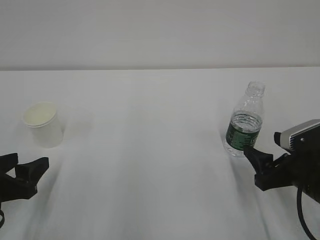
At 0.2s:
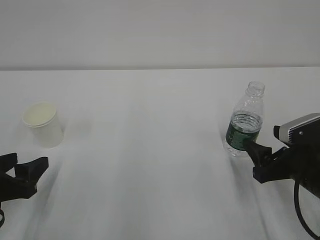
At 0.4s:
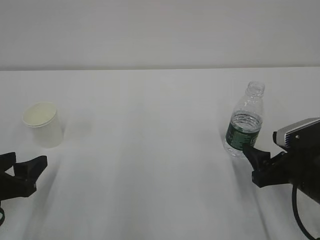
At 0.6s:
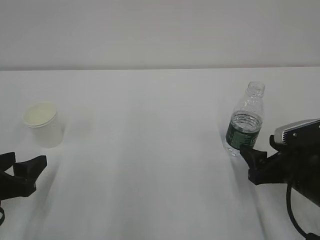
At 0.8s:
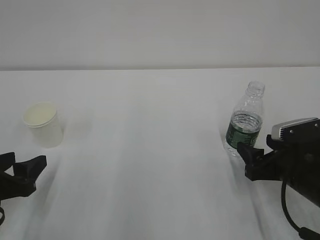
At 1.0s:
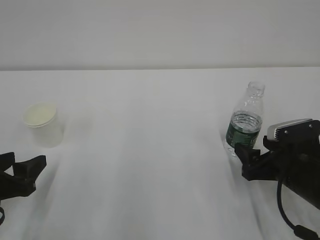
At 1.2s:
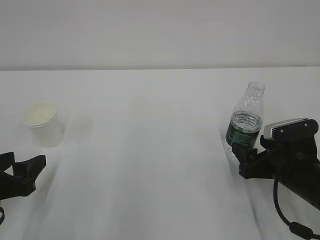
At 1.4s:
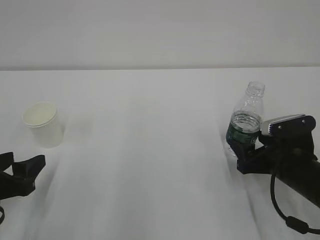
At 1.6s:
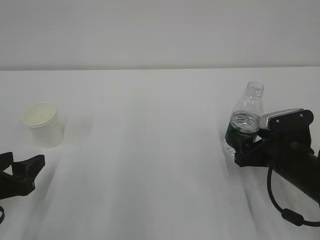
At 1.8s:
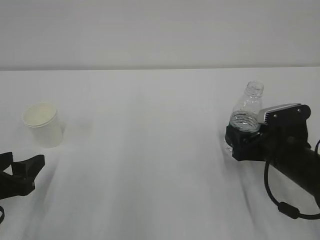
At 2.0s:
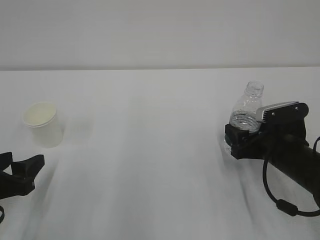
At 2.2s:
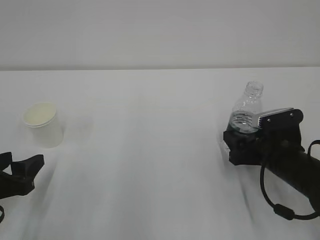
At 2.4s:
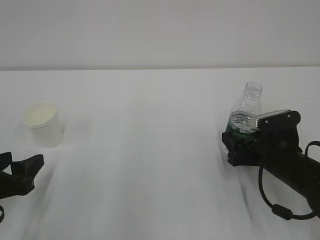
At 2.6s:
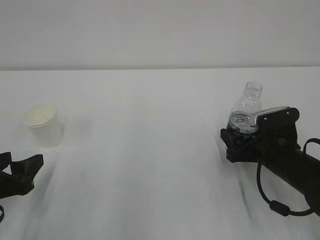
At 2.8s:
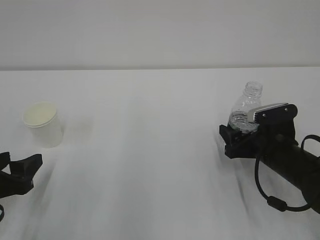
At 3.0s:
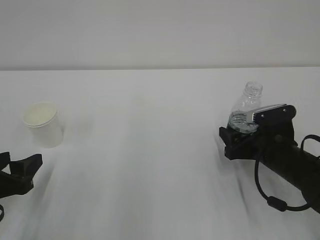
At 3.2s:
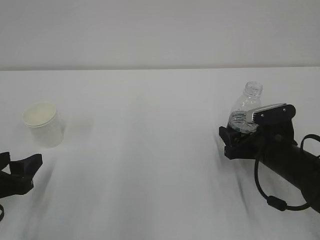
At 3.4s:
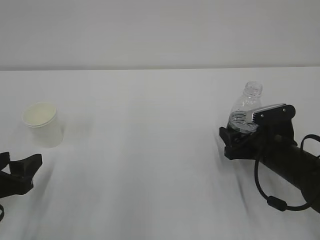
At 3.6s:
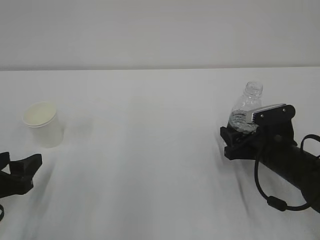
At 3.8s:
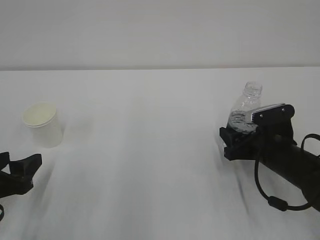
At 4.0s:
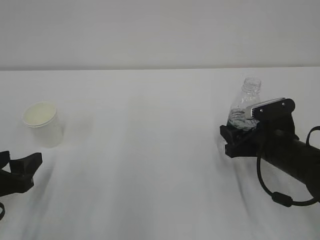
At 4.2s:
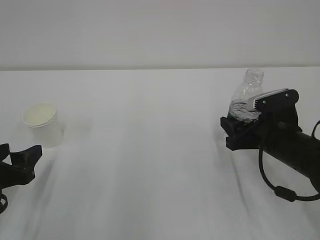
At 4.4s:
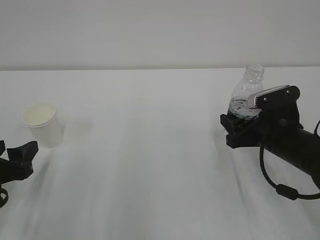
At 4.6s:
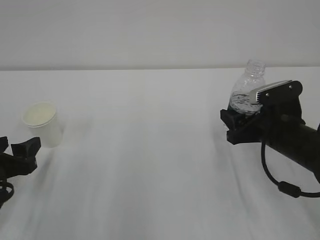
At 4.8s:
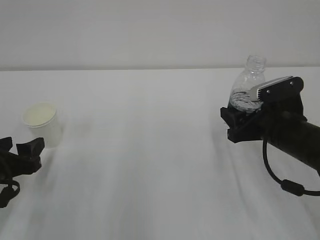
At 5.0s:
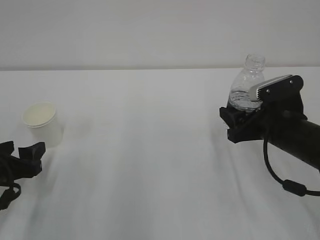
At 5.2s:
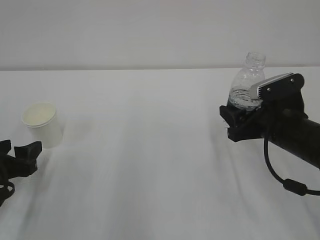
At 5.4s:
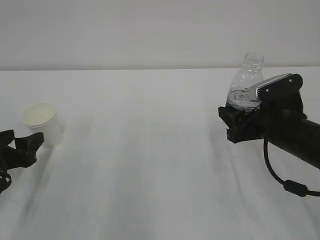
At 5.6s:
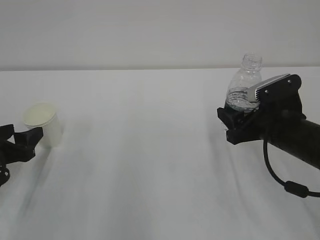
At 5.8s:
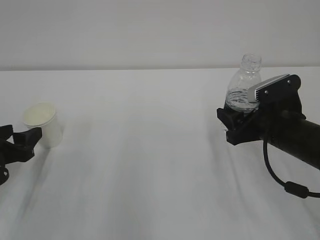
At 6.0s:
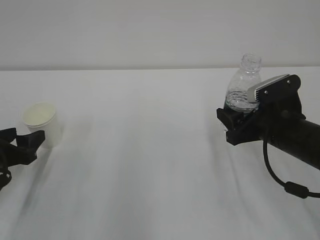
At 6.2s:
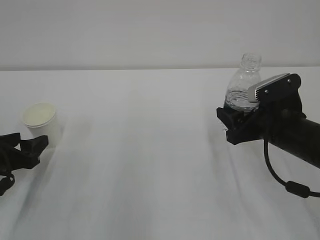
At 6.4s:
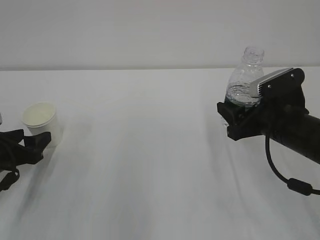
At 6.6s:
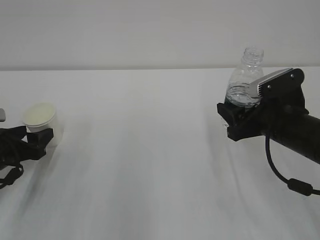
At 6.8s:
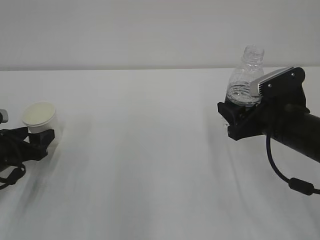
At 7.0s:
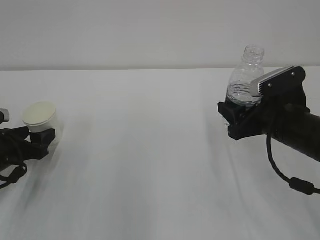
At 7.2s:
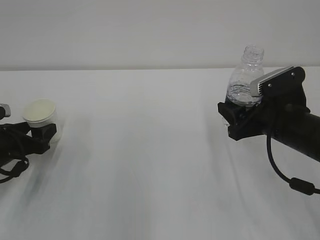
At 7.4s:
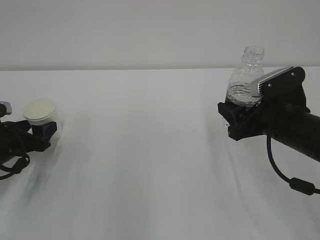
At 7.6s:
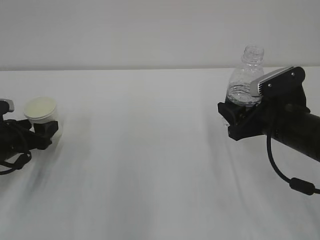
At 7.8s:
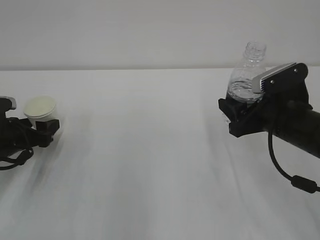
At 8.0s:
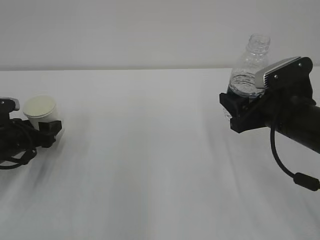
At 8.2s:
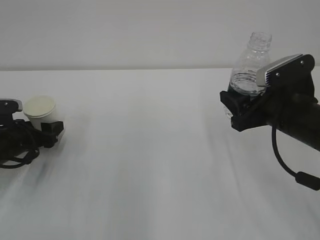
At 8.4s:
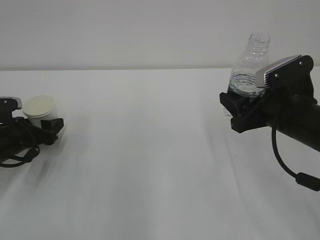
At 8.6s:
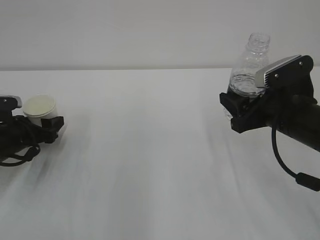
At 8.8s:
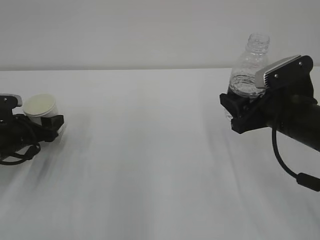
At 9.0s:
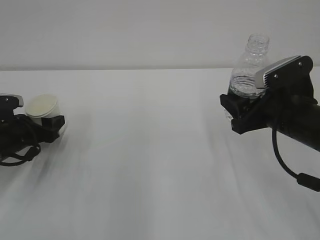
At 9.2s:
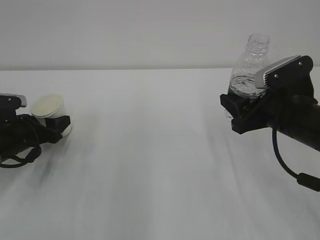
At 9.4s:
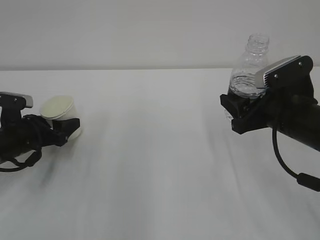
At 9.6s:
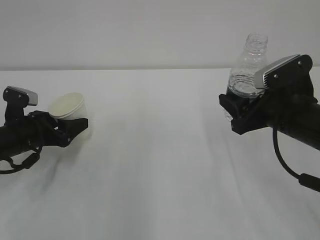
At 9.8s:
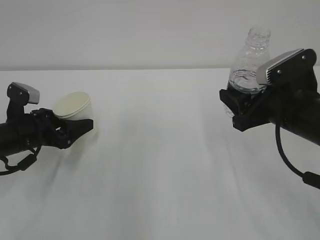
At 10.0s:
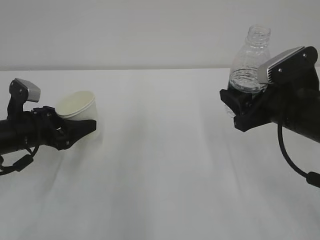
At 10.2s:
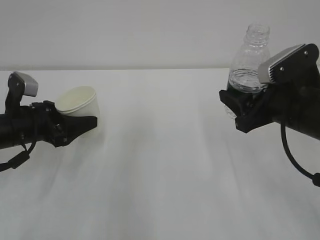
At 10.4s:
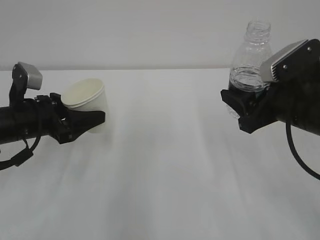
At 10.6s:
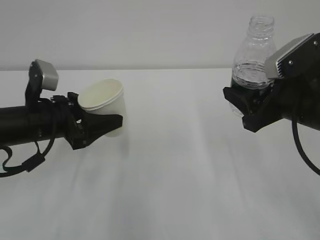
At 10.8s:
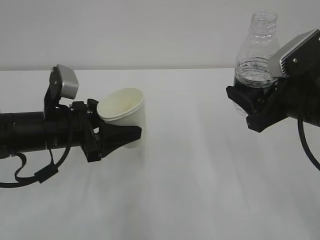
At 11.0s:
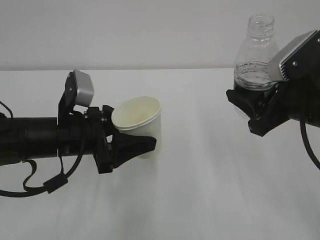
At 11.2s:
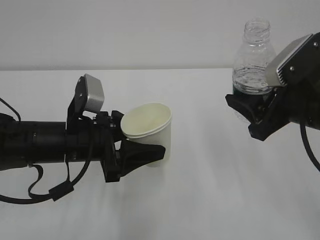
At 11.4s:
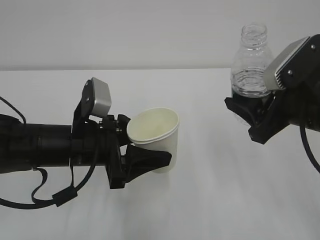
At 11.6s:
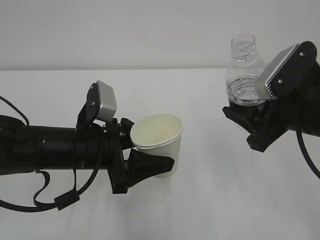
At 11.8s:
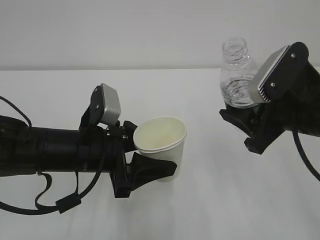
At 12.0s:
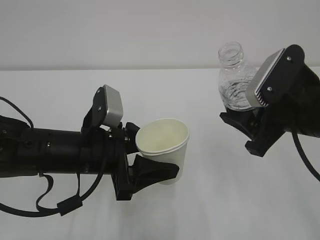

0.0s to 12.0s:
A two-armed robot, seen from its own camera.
0.0s to 1.6s: The right gripper heads forward, covering some 5 cm.
1.6s to 3.0s: The grippers make only small movements.
3.0s to 4.4s: The right gripper closes up.
4.4s to 6.0s: The left gripper moves approximately 5 cm.
6.0s to 7.6s: The left gripper travels forward by about 5 cm.
7.6s to 9.0s: The grippers move only a little.
9.0s to 10.4s: The left gripper goes about 10 cm upward and to the right.
10.4s to 12.0s: The left gripper heads to the right and backward, covering approximately 15 cm.

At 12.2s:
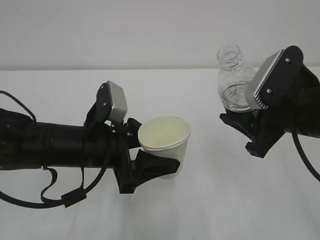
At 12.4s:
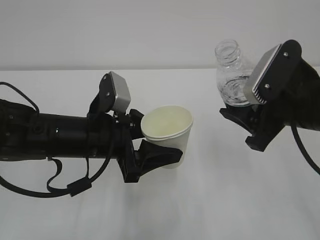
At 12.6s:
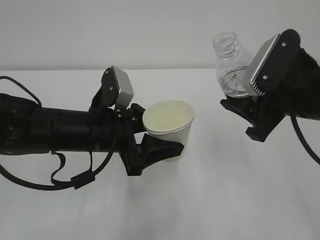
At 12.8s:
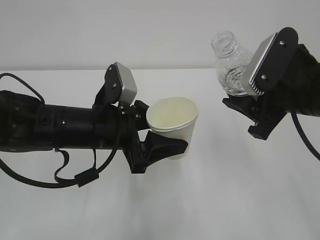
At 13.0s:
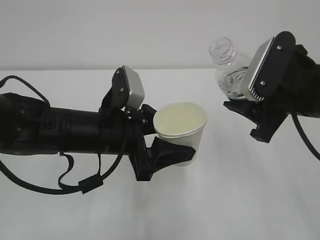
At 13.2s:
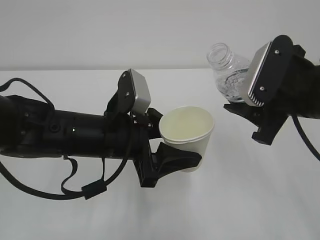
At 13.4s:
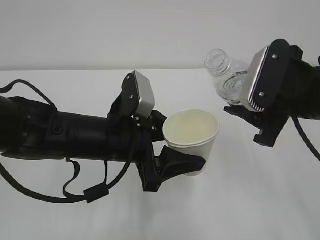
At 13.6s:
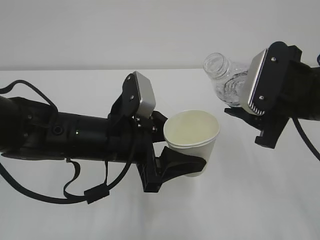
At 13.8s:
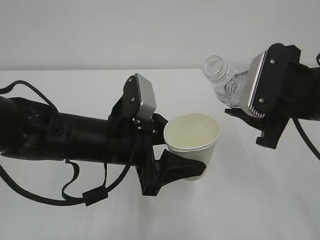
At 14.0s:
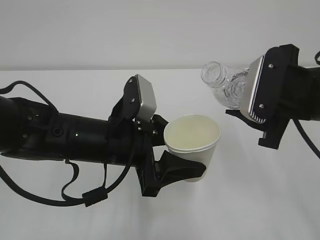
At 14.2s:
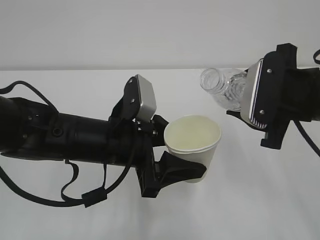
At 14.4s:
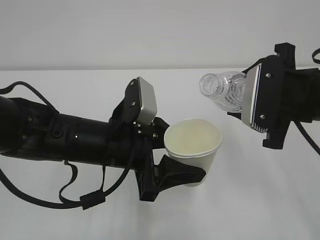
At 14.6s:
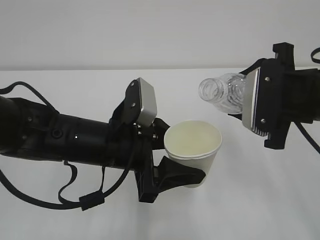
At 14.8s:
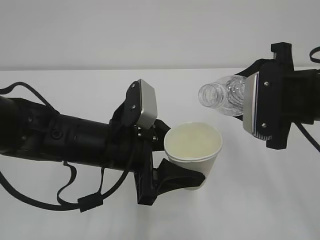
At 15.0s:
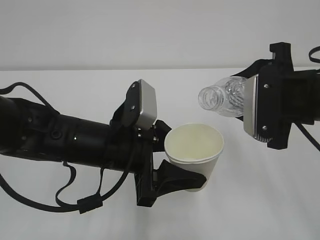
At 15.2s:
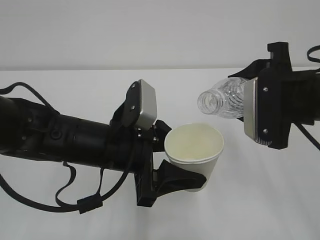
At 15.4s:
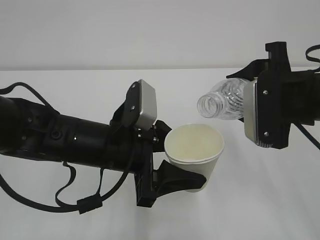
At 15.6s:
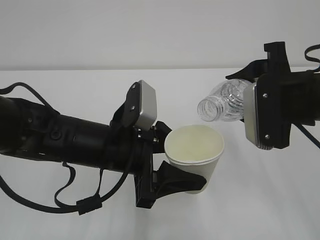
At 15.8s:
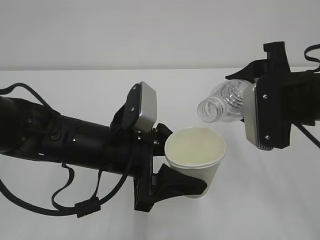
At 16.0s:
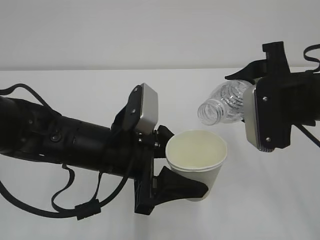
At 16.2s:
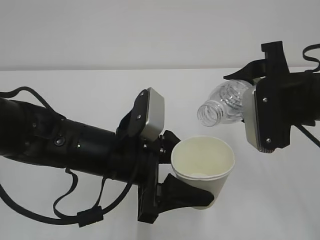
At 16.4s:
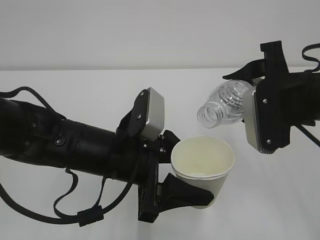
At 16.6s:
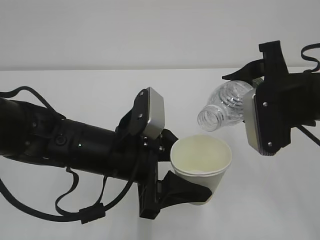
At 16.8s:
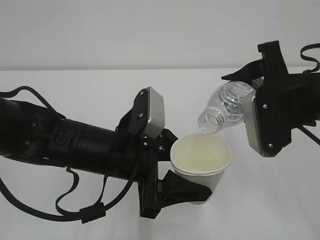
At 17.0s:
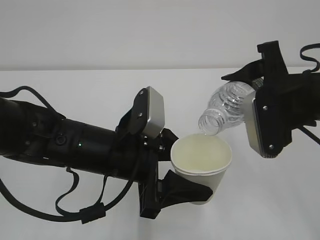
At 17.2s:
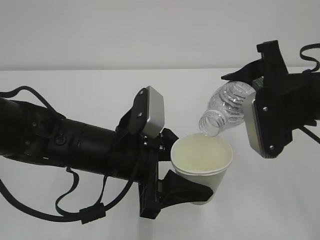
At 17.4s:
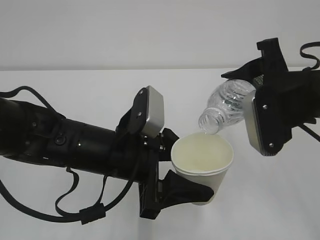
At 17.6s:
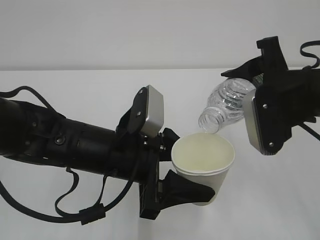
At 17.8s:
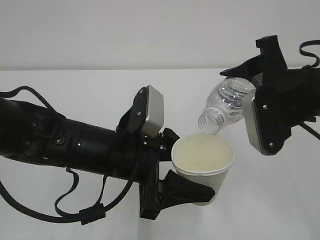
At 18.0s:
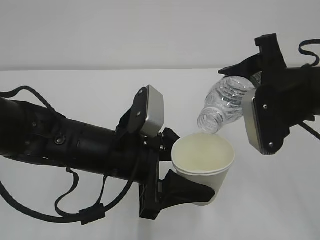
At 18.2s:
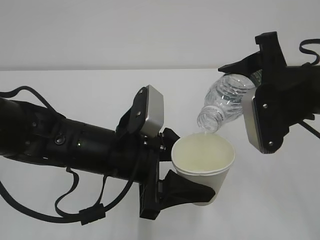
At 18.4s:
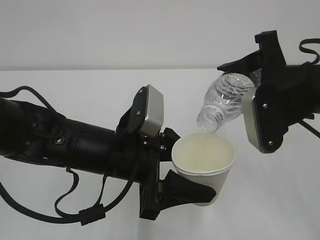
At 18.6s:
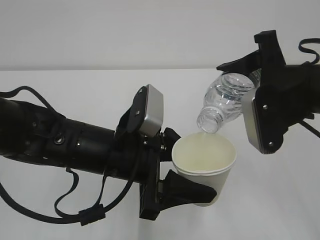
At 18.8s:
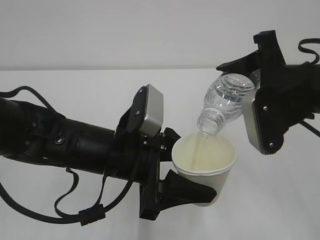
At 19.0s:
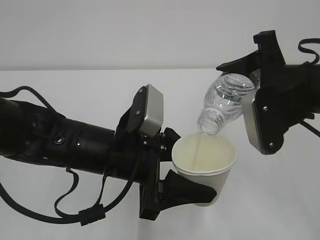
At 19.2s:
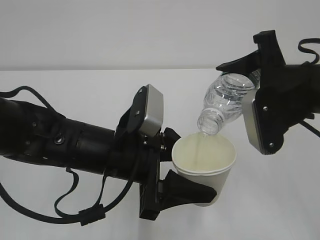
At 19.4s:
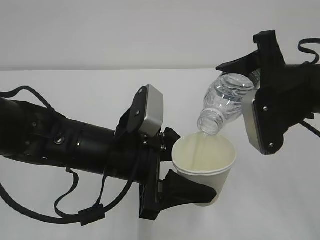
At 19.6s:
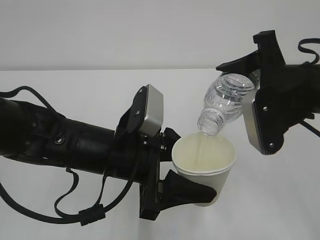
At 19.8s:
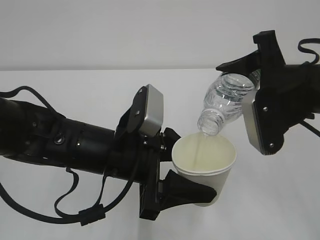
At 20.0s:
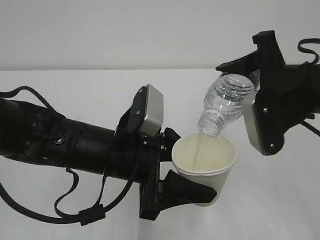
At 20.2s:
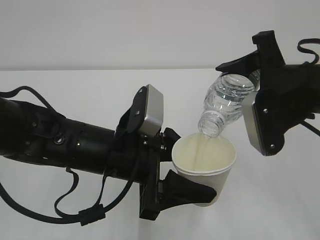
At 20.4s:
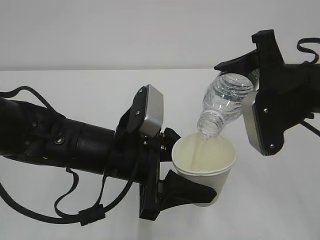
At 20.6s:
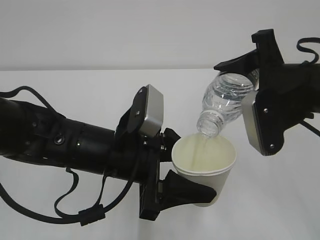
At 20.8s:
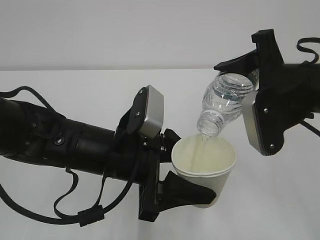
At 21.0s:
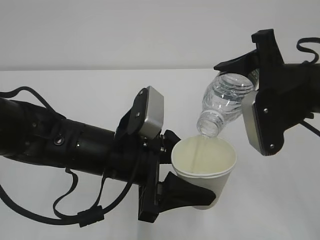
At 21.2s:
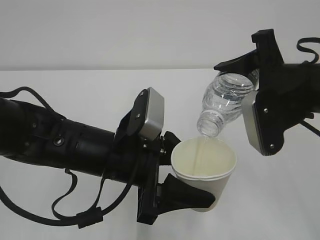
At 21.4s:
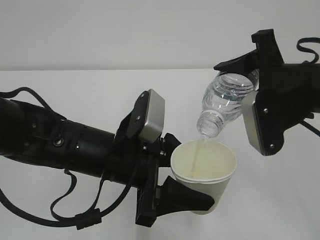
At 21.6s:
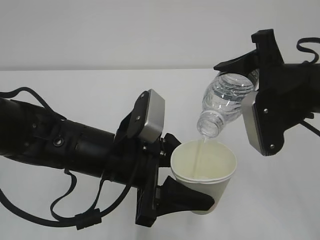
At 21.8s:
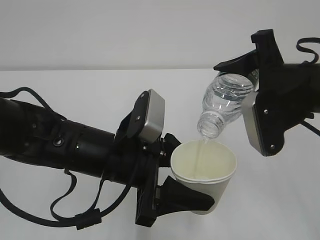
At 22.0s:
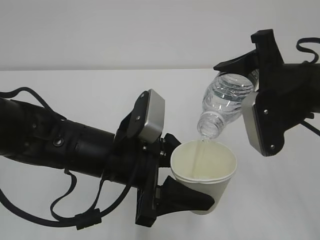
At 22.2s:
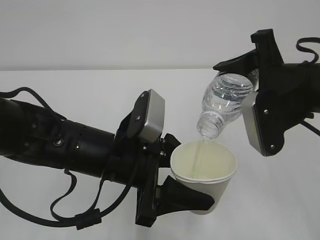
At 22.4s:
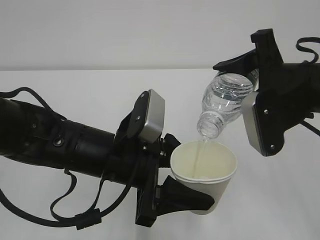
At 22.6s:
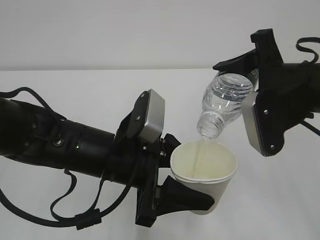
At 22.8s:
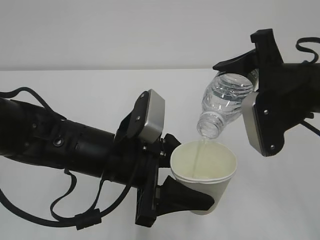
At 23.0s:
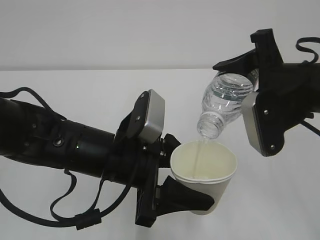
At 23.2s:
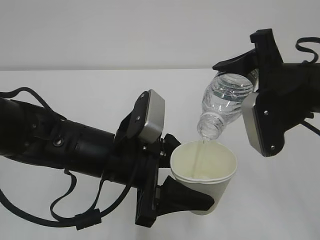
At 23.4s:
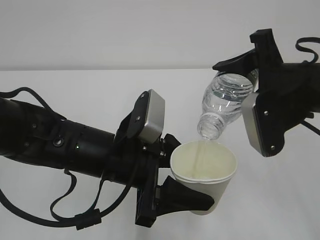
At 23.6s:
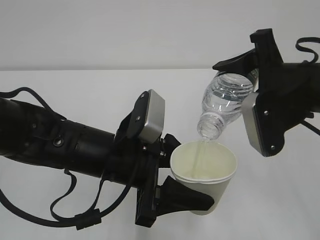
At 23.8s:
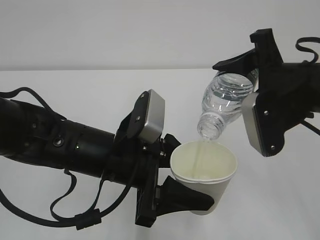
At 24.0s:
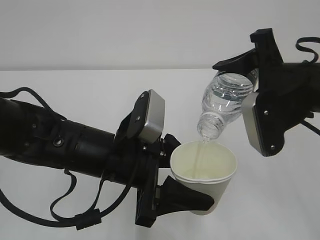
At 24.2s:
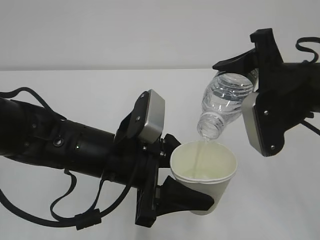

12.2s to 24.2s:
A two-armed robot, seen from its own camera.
15.2s to 18.2s: There are only small adjustments of the grippers.
18.2s to 19.8s: Neither gripper changes place.
19.8s to 24.2s: Neither gripper changes place.
